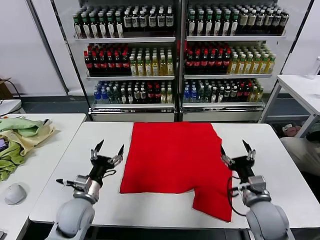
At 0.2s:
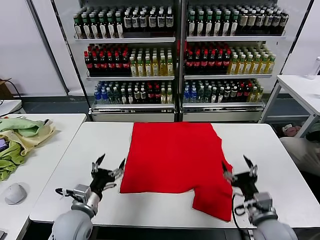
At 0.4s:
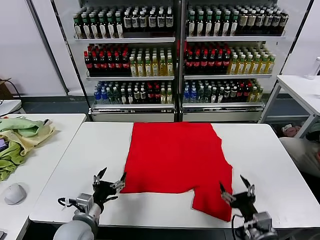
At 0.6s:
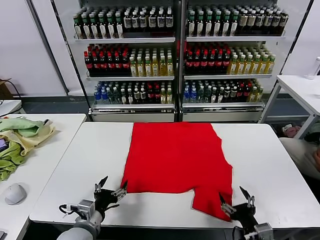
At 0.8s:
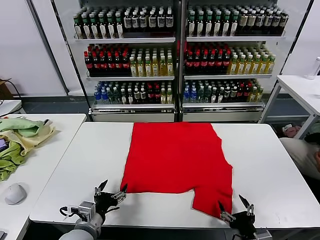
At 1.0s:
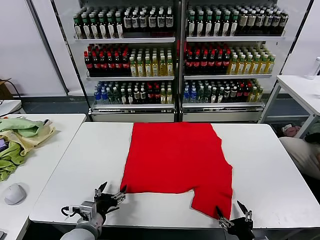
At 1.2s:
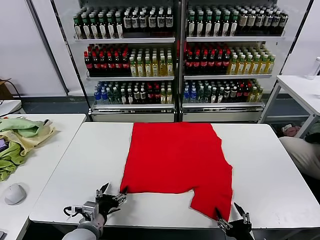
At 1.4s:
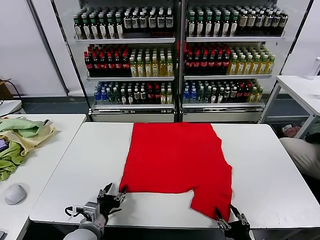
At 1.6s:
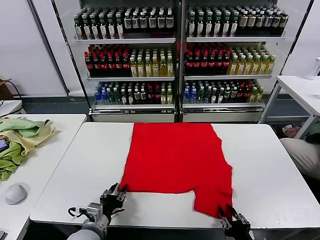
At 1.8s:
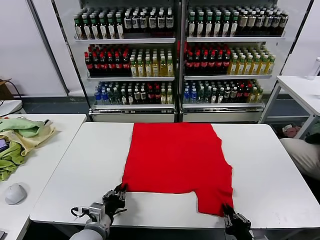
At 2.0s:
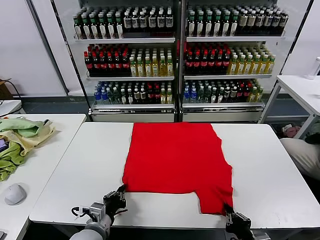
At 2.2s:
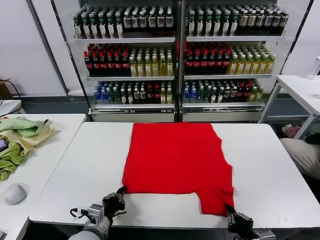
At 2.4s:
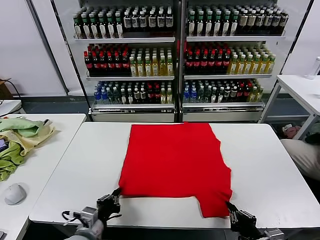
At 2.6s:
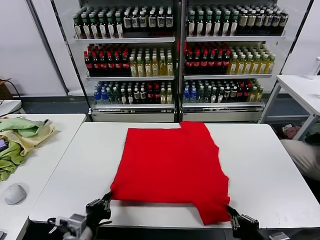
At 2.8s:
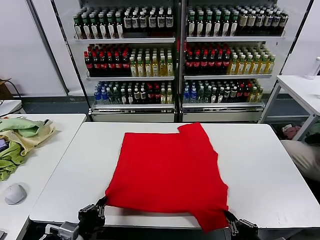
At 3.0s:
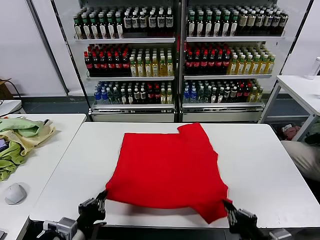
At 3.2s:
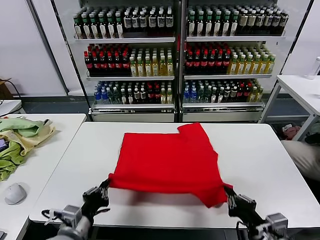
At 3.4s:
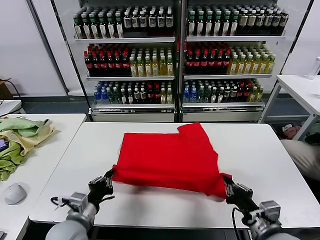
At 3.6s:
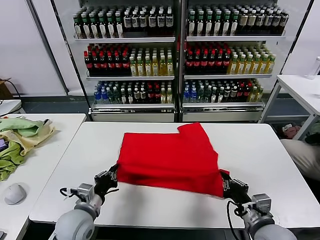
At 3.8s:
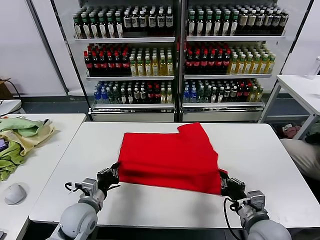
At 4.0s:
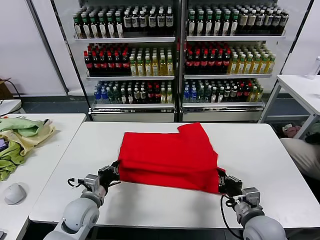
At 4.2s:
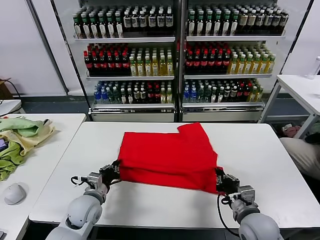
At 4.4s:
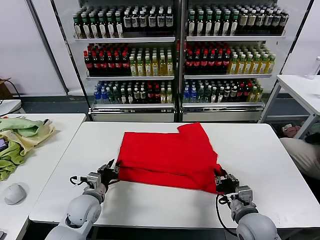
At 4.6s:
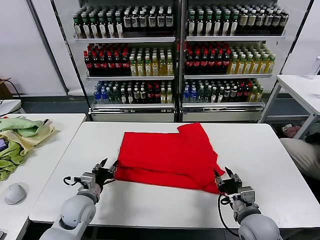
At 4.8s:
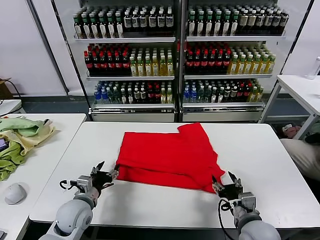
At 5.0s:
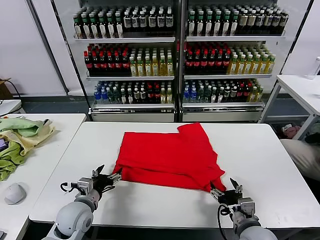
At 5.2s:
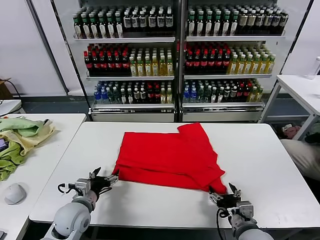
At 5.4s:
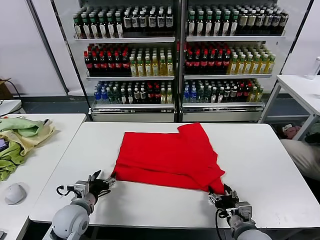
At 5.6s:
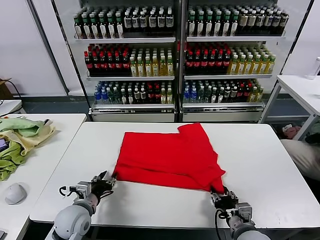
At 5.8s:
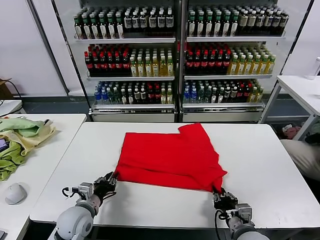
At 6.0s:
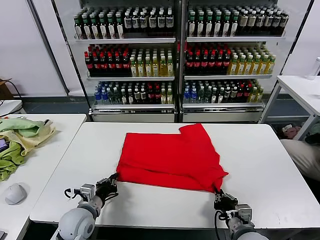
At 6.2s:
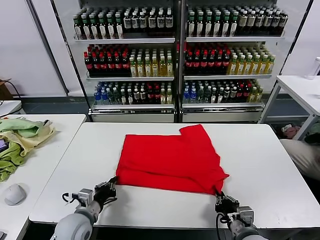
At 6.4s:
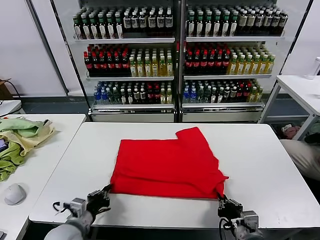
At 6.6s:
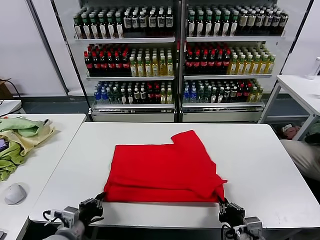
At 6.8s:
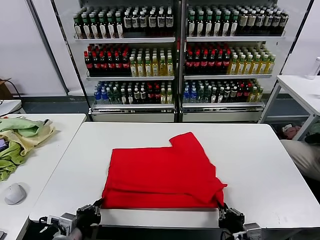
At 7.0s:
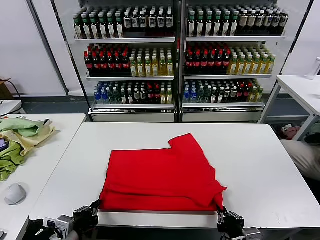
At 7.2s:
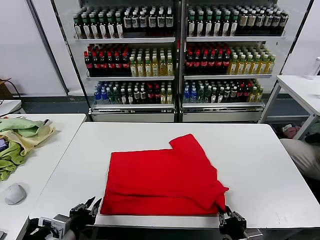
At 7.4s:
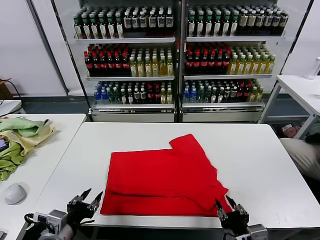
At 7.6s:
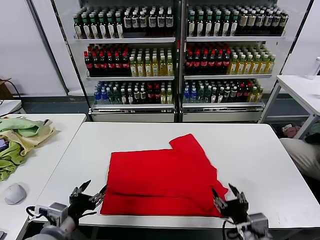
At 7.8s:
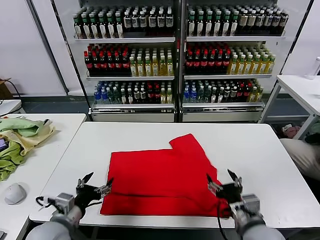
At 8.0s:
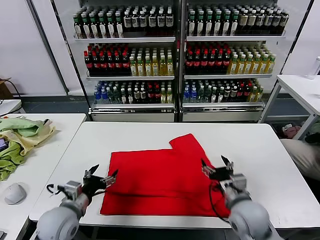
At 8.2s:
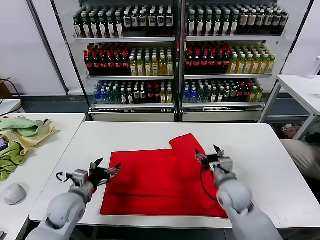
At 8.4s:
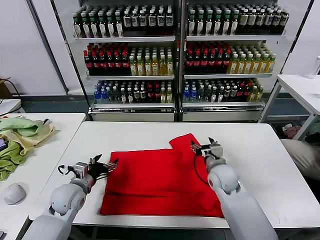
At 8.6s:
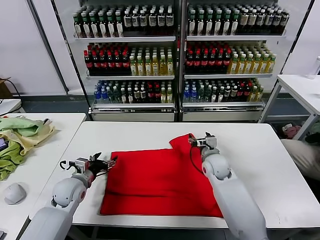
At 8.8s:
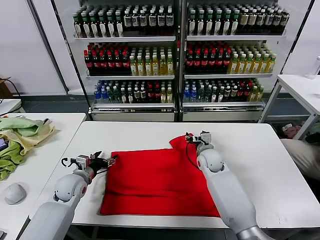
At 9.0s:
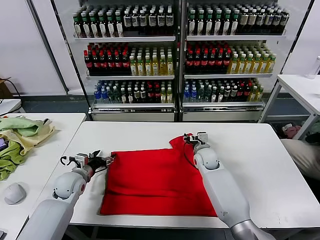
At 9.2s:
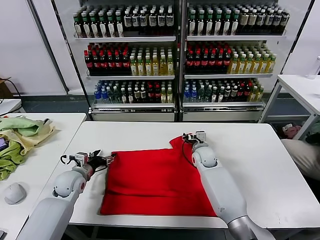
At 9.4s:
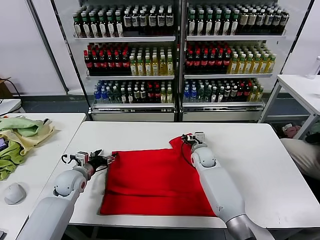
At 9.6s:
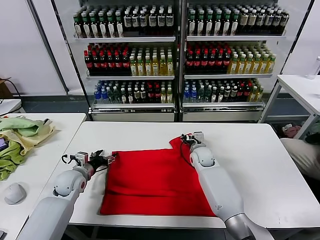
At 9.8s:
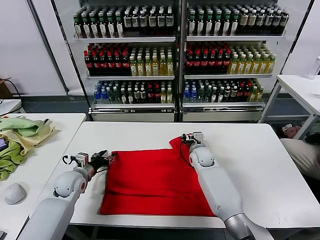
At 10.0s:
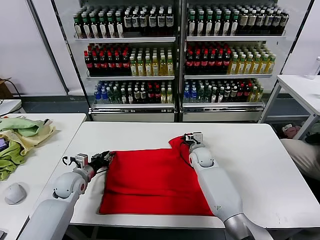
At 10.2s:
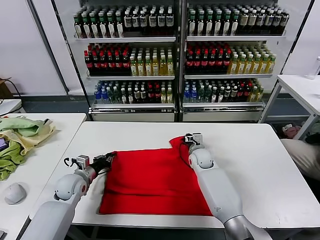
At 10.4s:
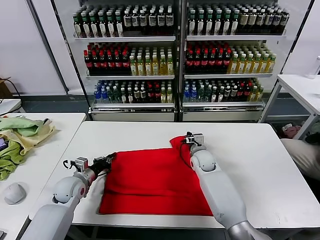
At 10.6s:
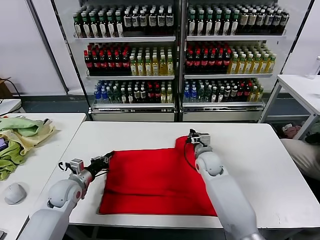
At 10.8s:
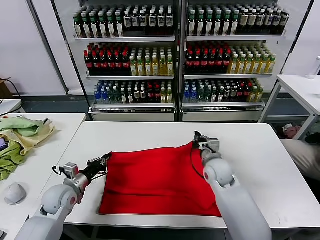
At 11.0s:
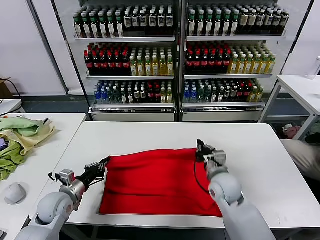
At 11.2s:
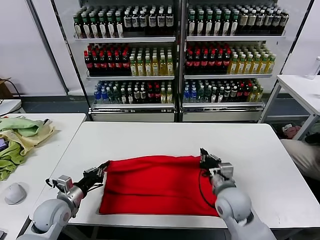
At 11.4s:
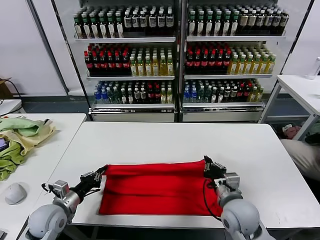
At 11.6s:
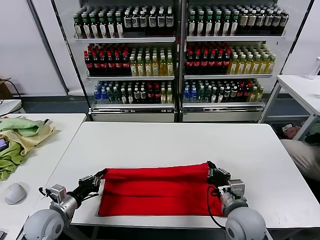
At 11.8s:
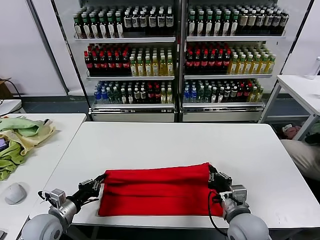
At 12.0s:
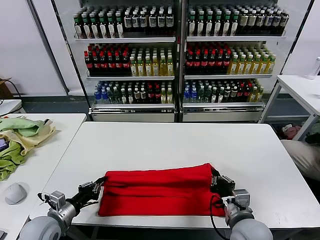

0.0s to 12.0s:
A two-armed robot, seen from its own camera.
Task of the whole recording: fold and organize the clothes.
Step, 0.0s to 2.2s: use both grippers simultaneously to clamp the lower edge of the clothing fabric.
Step, 2.4s to 4.4s: use both grippers to drag the lower edge of the fabric forward and fold it over the upper edge.
Step, 4.8s to 7.4s: Drag the clothes downward with both gripper.
Step, 7.6s to 10.2s: use both grippers simultaneously to clamp the upper edge of the clothing fabric.
1.6s to 3.0s: The right gripper goes roughly 10 cm upward; the left gripper is displaced upward and backward by roughly 10 cm.
3.0s to 4.4s: The grippers both shift forward and downward by about 15 cm. The right gripper opens, while the left gripper opens up.
4.4s to 6.0s: The left gripper closes. Meanwhile the right gripper changes place by approximately 5 cm, and closes up.
6.0s to 7.6s: The left gripper heads upward and backward, covering some 15 cm, and opens. Meanwhile the right gripper goes approximately 10 cm upward, and opens its fingers.
7.6s to 9.0s: The left gripper heads forward, covering about 20 cm; the right gripper heads forward, covering about 35 cm.
9.0s to 10.4s: The right gripper closes up. Meanwhile the left gripper closes.
10.4s to 12.0s: The left gripper goes approximately 15 cm backward. The right gripper moves backward, approximately 30 cm.

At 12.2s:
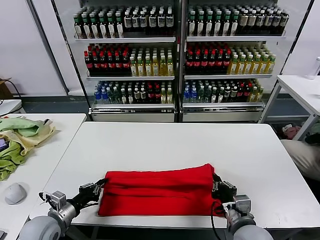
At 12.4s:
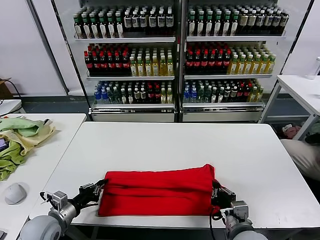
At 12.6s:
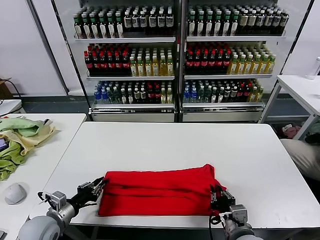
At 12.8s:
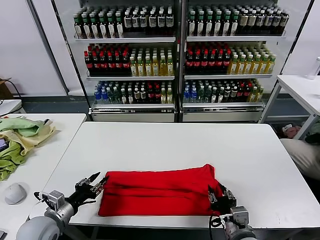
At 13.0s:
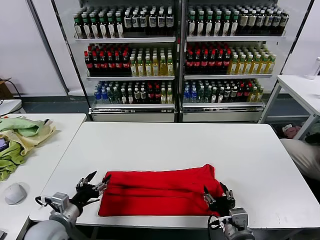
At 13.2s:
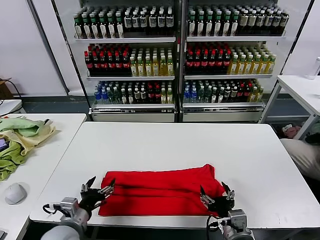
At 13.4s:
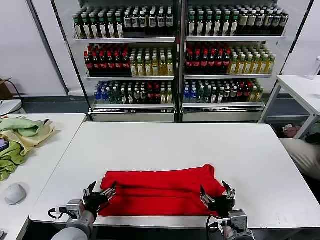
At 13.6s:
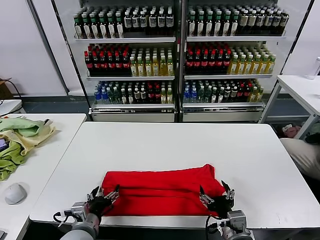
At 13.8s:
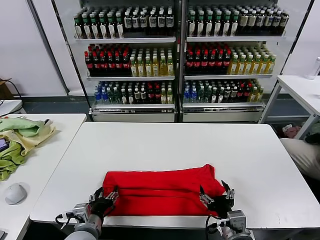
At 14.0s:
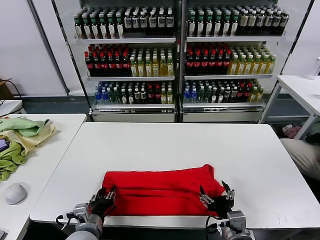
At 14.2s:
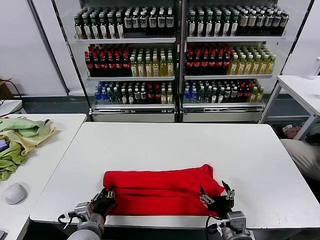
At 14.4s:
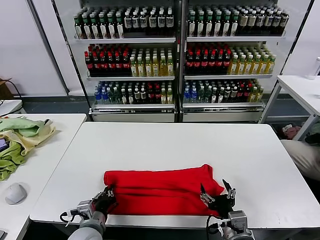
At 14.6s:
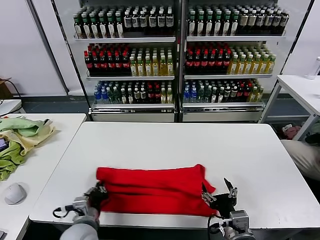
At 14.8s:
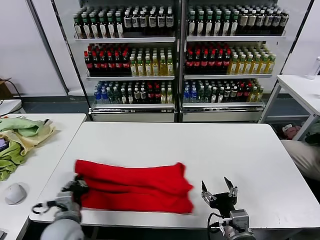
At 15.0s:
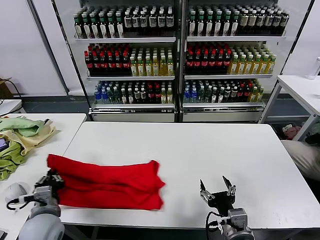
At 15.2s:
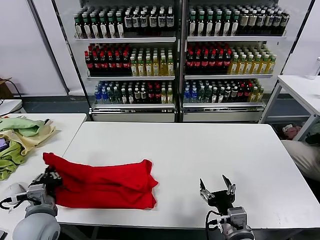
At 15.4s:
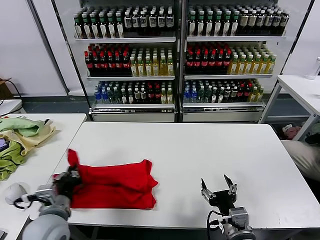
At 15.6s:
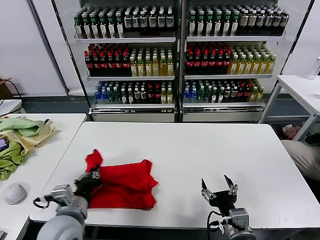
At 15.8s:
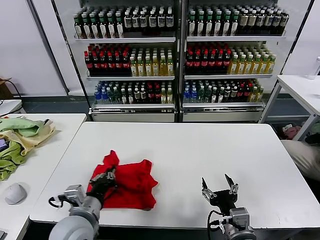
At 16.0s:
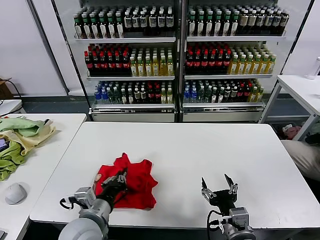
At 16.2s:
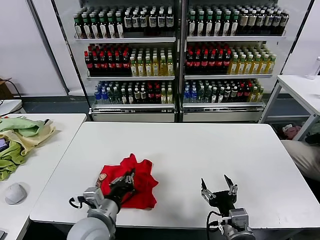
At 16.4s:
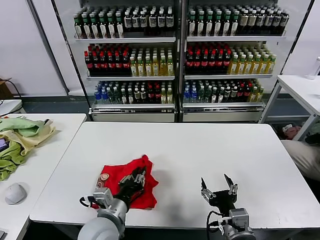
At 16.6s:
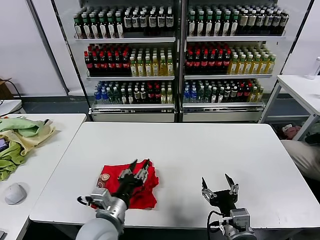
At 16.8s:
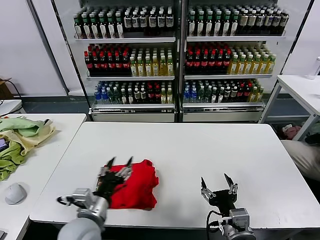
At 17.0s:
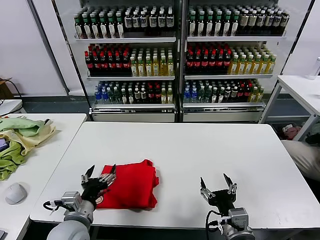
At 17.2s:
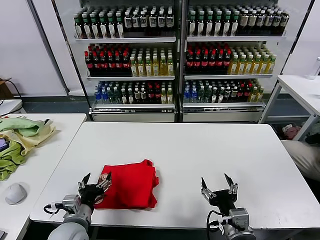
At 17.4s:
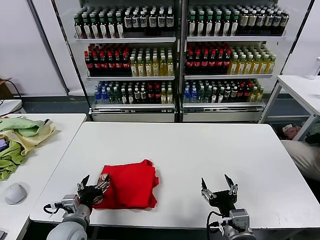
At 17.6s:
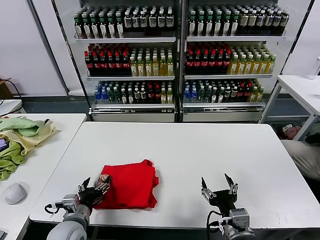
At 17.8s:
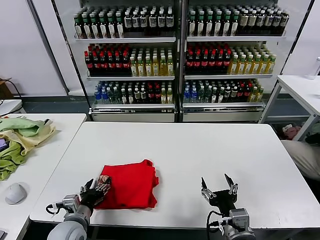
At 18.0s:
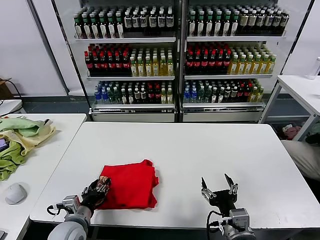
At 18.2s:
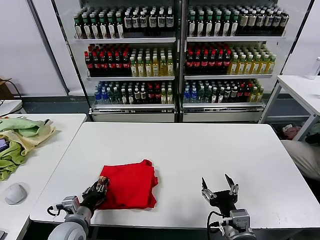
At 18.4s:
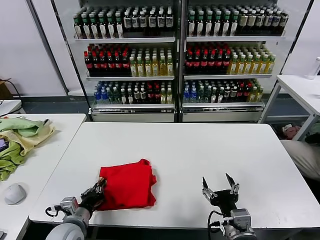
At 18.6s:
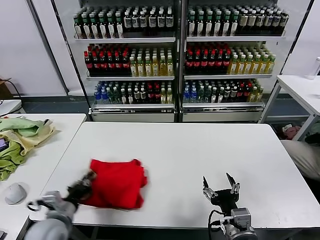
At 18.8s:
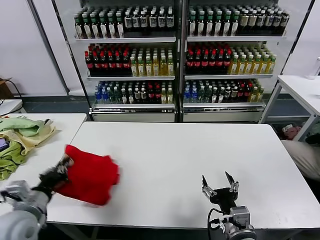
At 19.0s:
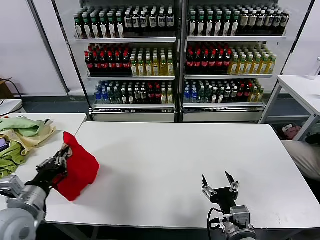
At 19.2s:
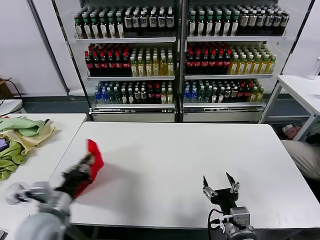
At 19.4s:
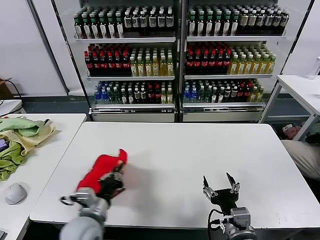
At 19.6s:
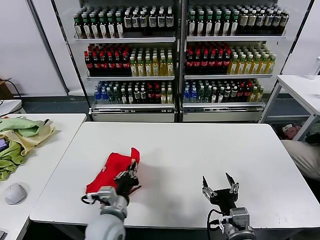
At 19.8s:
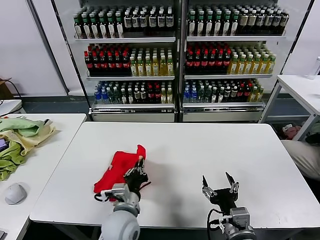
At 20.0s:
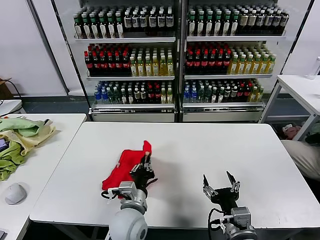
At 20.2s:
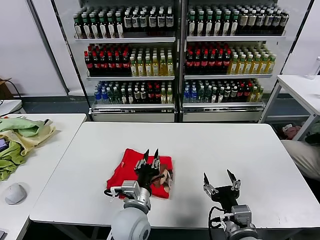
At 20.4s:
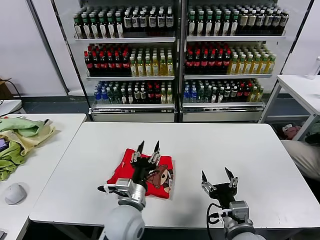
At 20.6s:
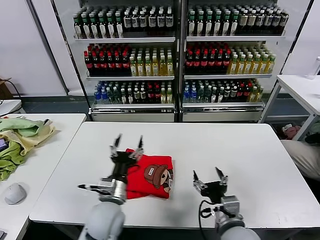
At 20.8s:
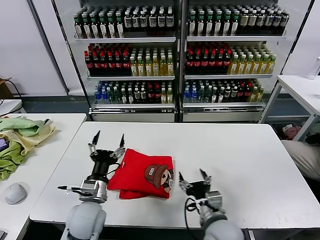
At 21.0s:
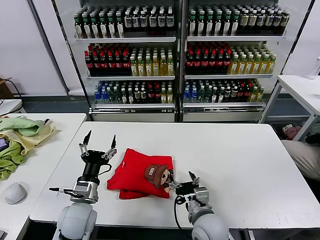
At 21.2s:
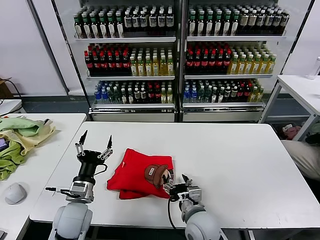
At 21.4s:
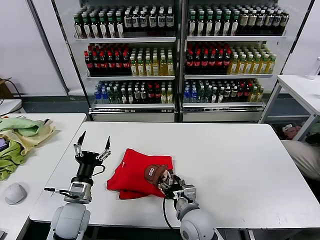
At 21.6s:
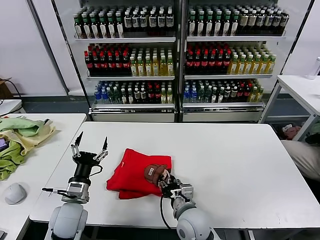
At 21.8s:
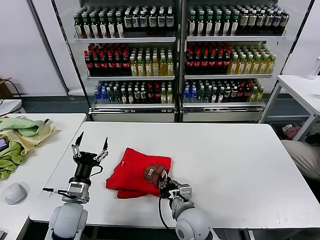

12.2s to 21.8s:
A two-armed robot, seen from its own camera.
Task of the whole recording: fold and organize the clothes.
Step, 13.0s to 14.4s: use the left gripper to clamp the left edge of the fabric.
Step, 14.6s to 16.4s: use the left gripper to drag the left edge of the fabric to the left and folds it over the right edge.
Step, 16.6s to 20.2s: Flip the folded clothes over with left gripper.
12.2s to 13.8s: The left gripper travels to the right by roughly 15 cm, and opens its fingers. The right gripper opens its fingers.
13.8s to 15.4s: The left gripper is displaced upward and to the left by approximately 10 cm, and closes its fingers.
15.4s to 17.0s: The left gripper reaches about 15 cm to the right, then returns, and opens its fingers.
17.0s to 18.6s: The left gripper heads to the left, covering approximately 5 cm, and closes its fingers.
18.6s to 20.2s: The left gripper heads to the right, covering approximately 20 cm.
20.2s to 21.8s: The left gripper is displaced to the left by about 20 cm, and opens; the right gripper travels to the left, forward and downward by some 15 cm, and closes.
